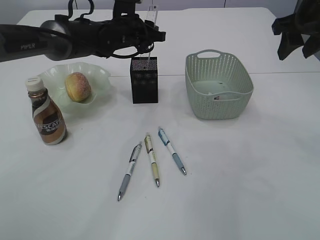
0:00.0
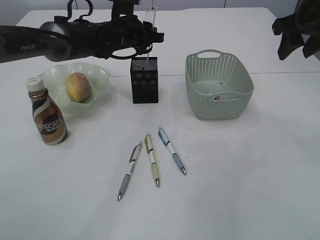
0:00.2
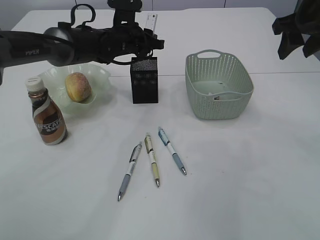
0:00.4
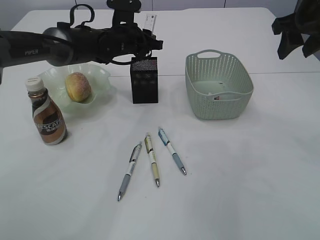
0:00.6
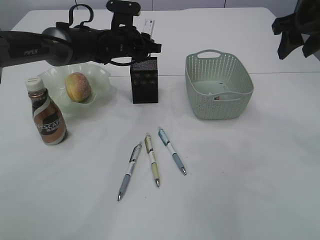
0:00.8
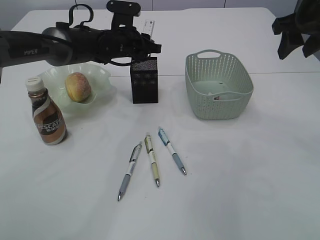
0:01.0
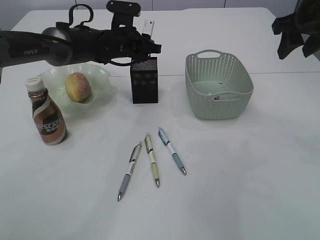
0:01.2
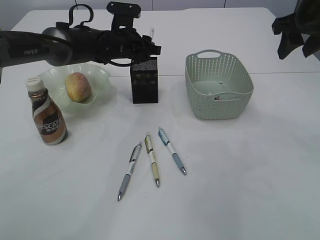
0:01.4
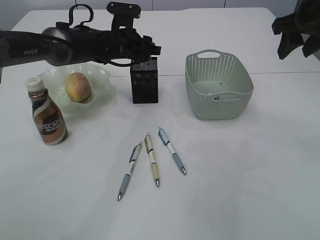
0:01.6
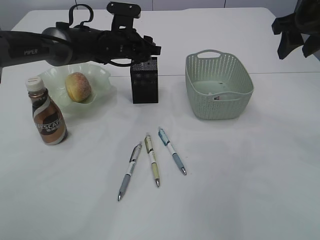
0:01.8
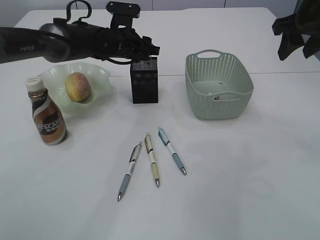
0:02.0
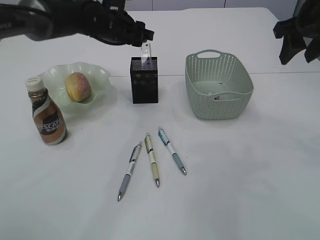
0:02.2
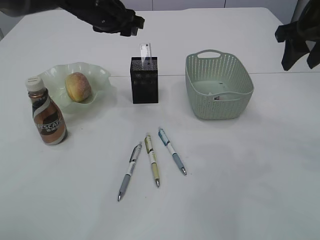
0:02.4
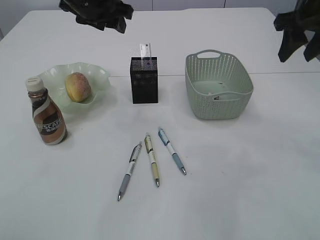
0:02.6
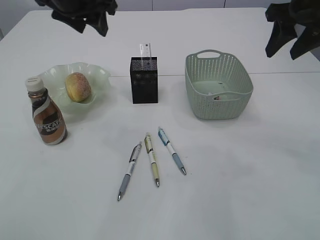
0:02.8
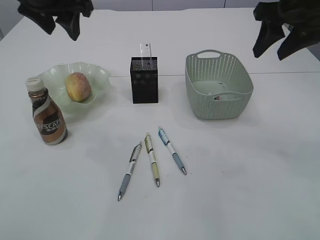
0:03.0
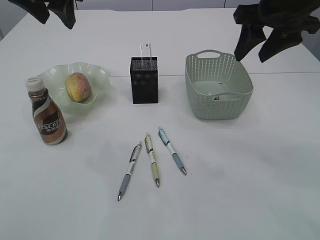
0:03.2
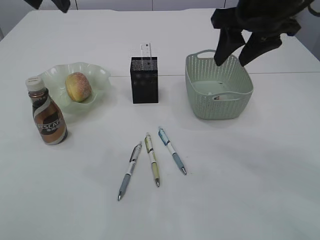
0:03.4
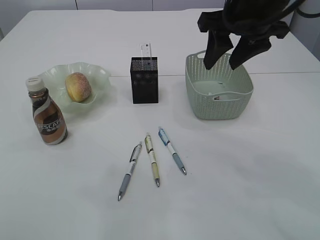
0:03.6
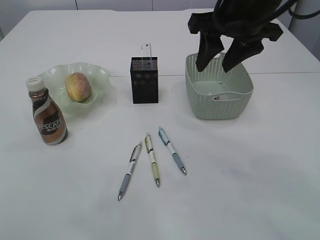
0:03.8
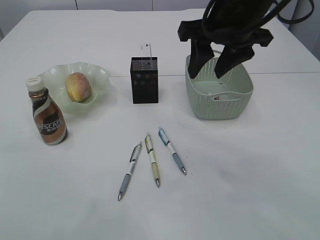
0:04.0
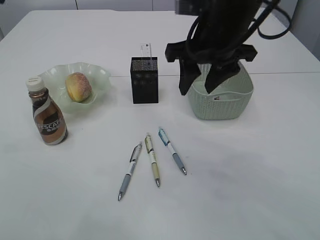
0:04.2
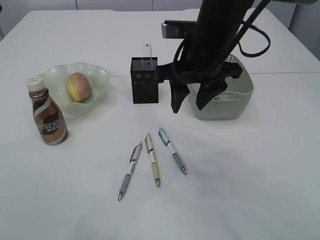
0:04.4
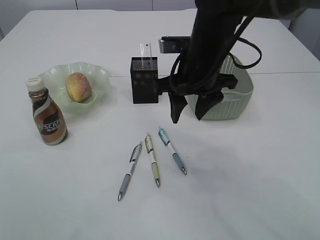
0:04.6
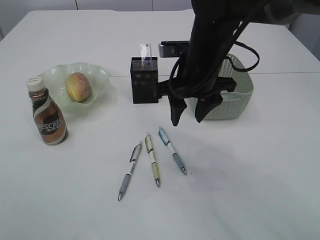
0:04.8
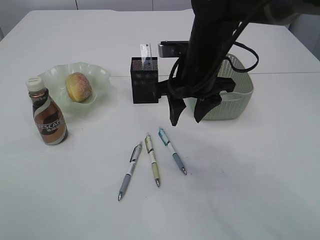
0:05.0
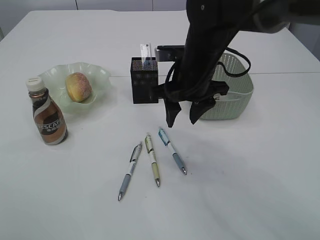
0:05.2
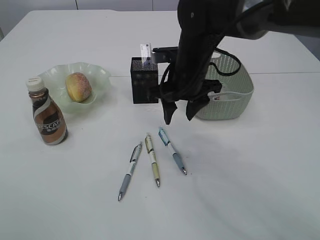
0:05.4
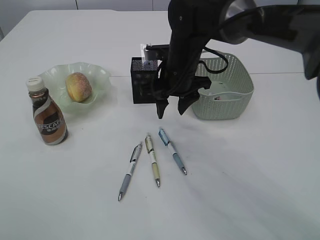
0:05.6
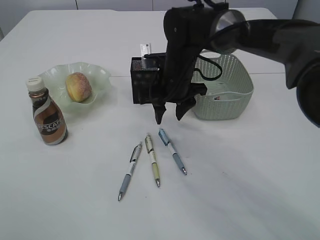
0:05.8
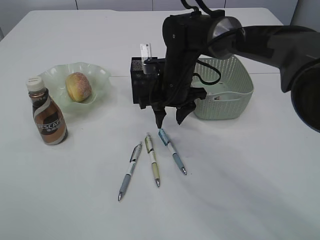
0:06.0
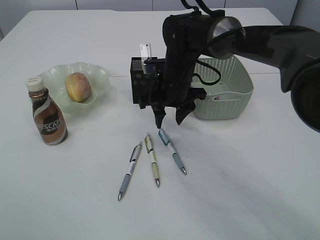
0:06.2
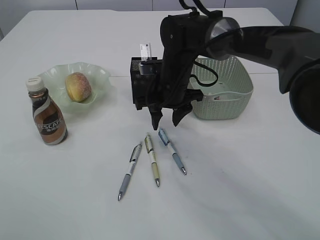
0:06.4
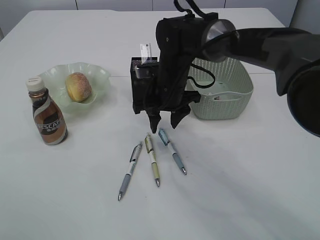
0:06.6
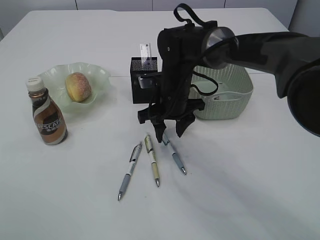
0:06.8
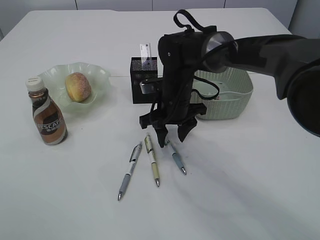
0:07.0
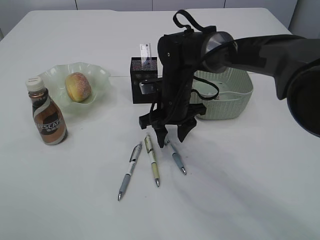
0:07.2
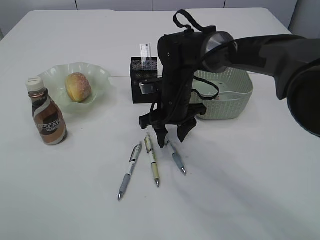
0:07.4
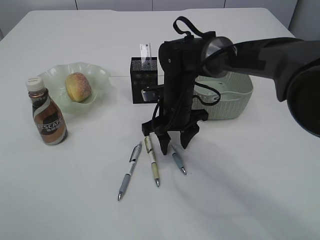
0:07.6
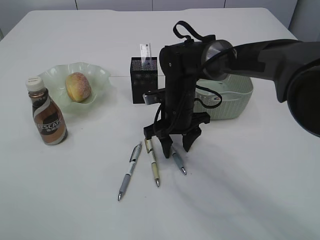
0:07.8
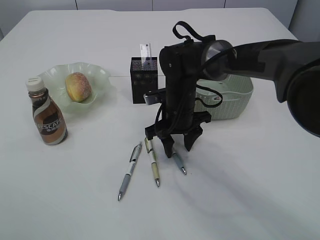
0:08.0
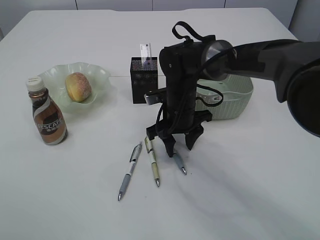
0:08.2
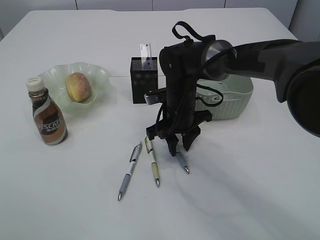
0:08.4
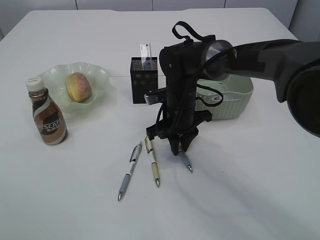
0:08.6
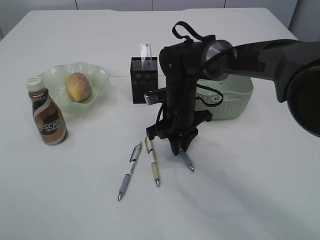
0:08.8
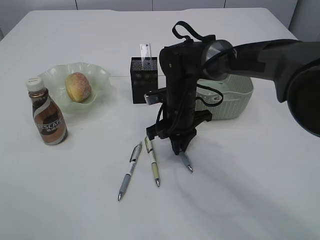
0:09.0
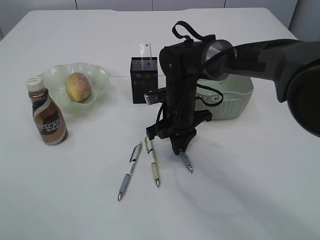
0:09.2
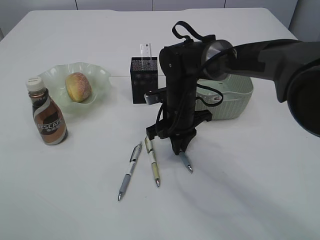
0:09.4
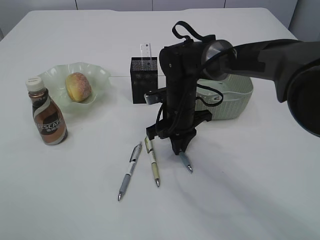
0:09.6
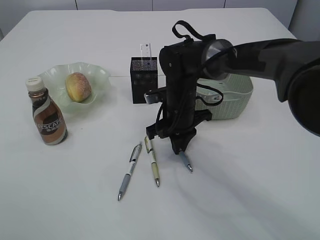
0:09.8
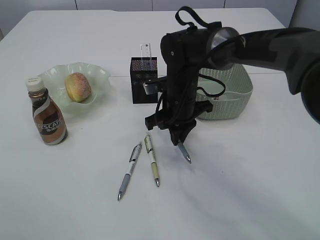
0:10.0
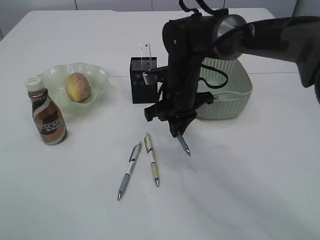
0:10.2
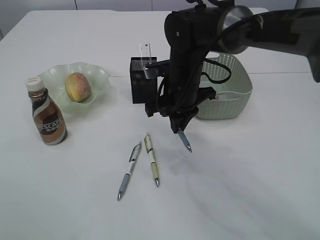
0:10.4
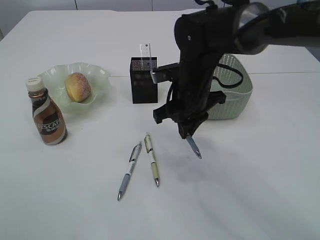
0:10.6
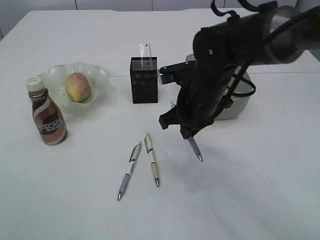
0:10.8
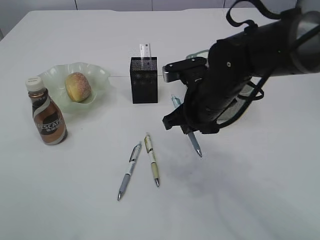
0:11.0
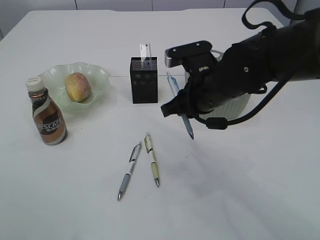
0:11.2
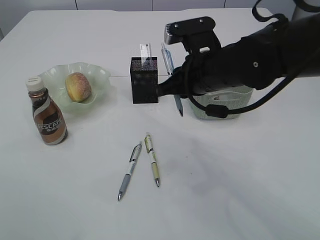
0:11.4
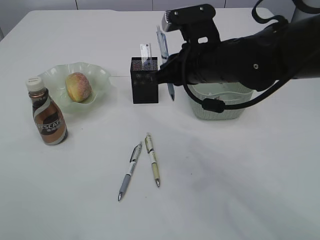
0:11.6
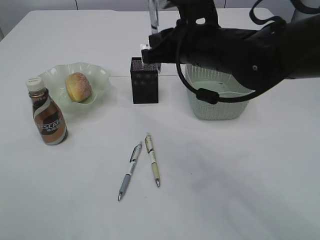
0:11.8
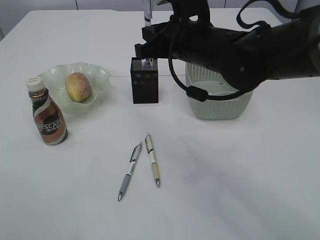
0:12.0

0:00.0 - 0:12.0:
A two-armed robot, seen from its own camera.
Step, 0:00.0 - 0:02.2: Place the ruler into the pen holder.
Step, 0:02.4 - 0:10.2: Pick up the pen with right arm.
0:00.0 - 0:01.6: The grippers move only a little.
0:01.6 - 0:03.0: The left gripper travels upward, backward and to the left by roughly 20 cm.
0:03.0 - 0:04.4: The right gripper goes approximately 15 cm to the left and downward. The left gripper heads backward and upward, covering some 20 cm.
0:04.4 - 0:06.0: The right gripper travels downward and forward by some 15 cm.
0:06.0 - 0:07.6: The grippers make only small movements.
0:07.6 - 0:09.0: The right gripper closes its fingers.
0:09.0 - 0:10.4: The right gripper shifts about 5 cm upward.
0:10.4 - 0:12.0: The right gripper heads upward, covering some 10 cm.

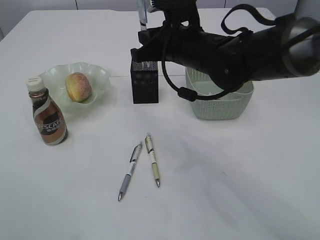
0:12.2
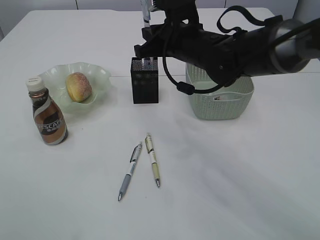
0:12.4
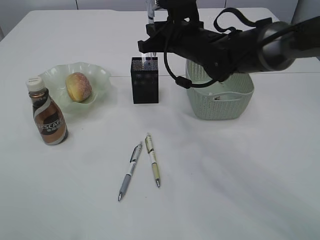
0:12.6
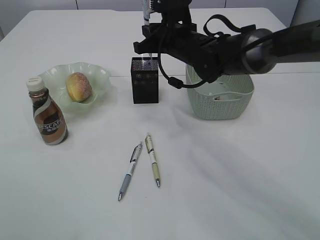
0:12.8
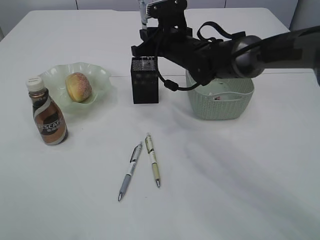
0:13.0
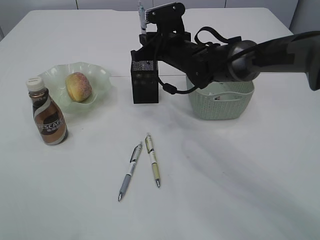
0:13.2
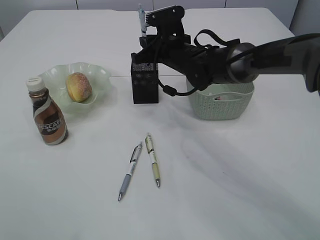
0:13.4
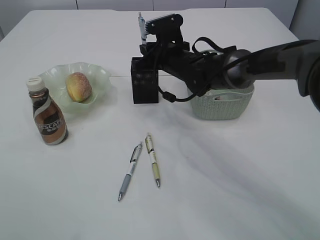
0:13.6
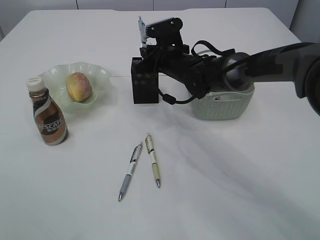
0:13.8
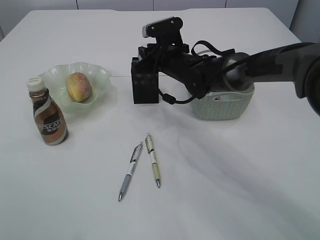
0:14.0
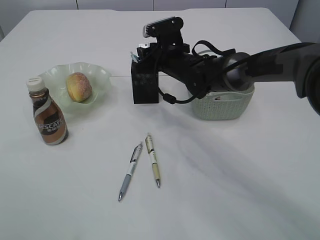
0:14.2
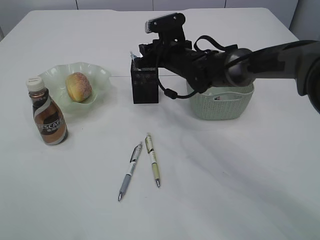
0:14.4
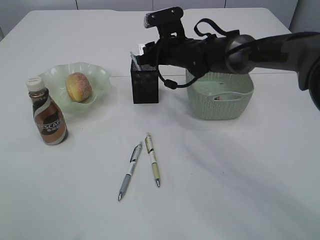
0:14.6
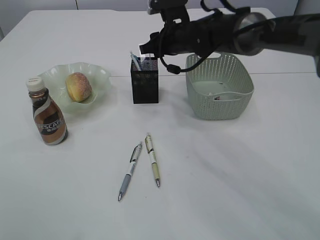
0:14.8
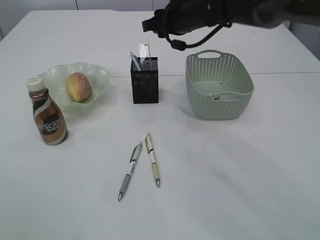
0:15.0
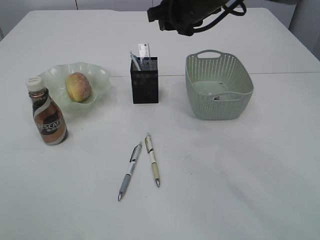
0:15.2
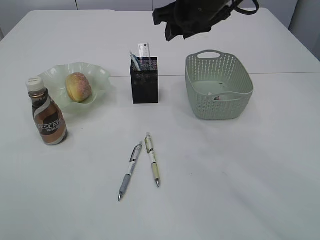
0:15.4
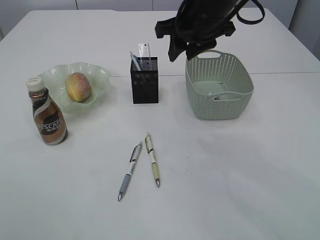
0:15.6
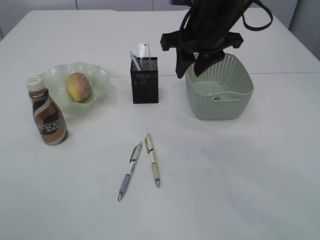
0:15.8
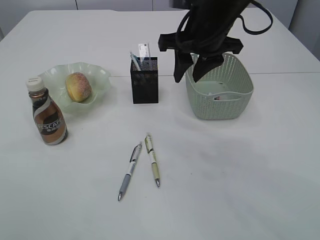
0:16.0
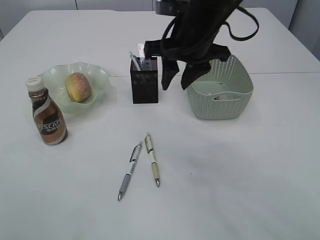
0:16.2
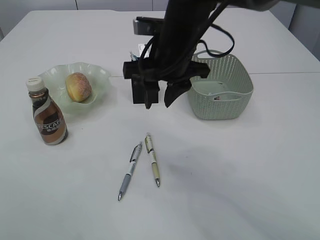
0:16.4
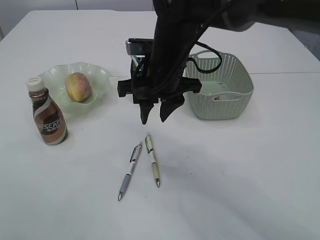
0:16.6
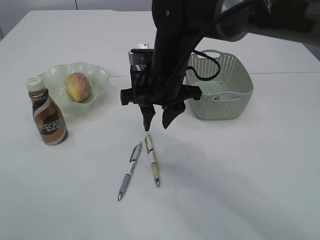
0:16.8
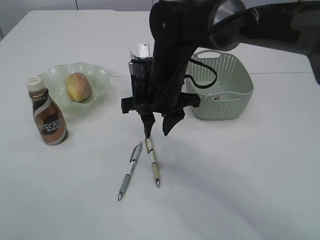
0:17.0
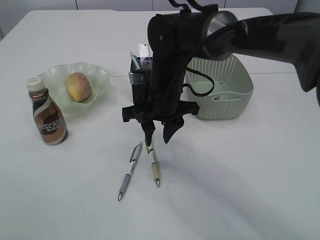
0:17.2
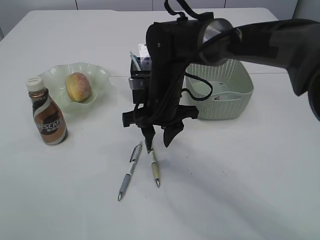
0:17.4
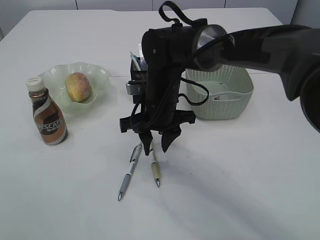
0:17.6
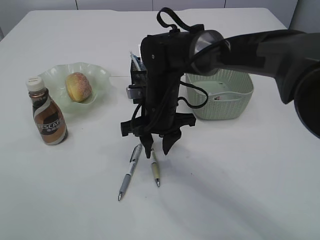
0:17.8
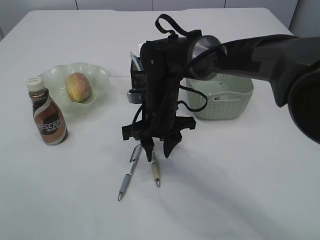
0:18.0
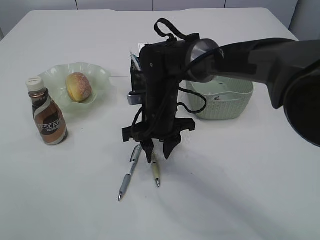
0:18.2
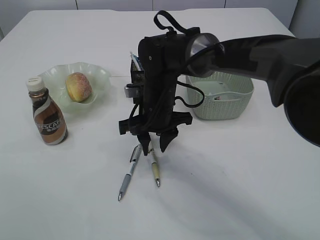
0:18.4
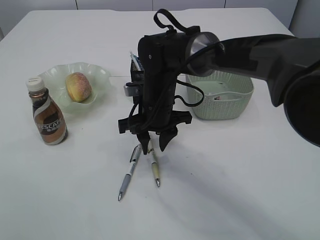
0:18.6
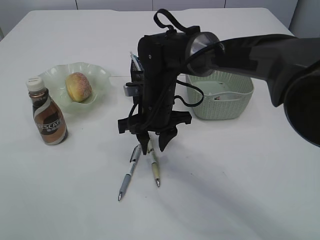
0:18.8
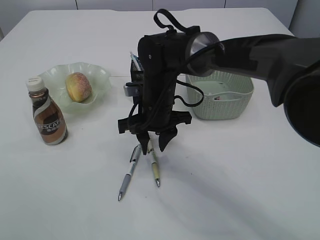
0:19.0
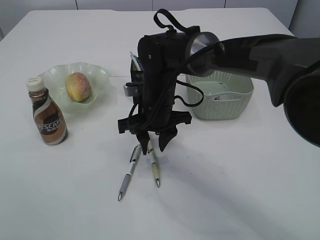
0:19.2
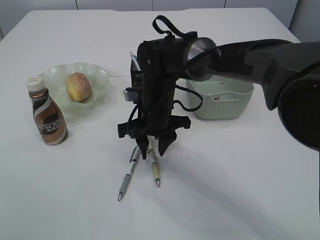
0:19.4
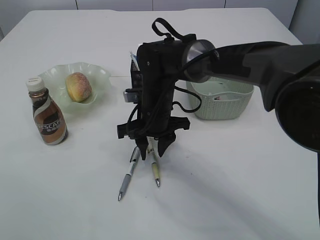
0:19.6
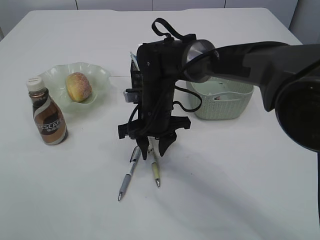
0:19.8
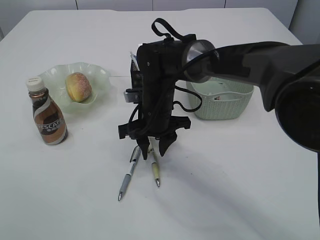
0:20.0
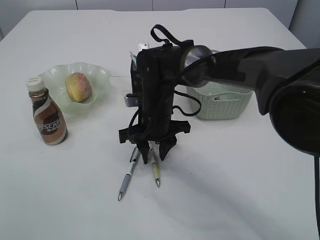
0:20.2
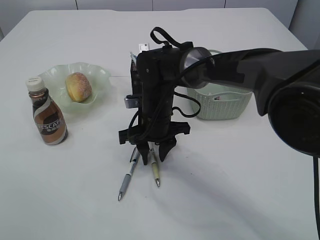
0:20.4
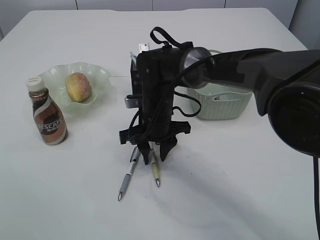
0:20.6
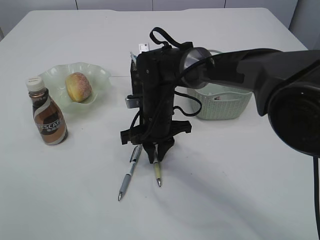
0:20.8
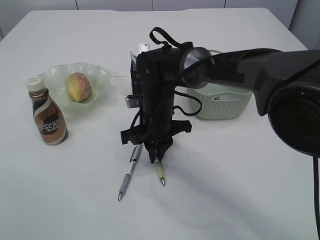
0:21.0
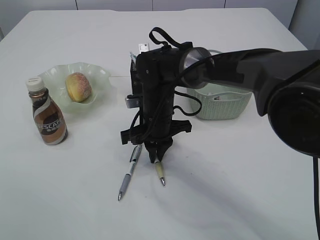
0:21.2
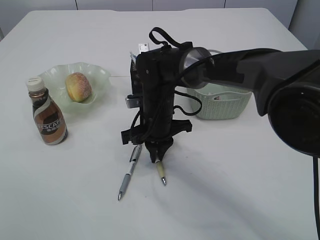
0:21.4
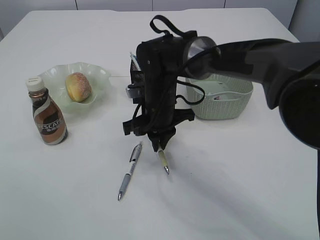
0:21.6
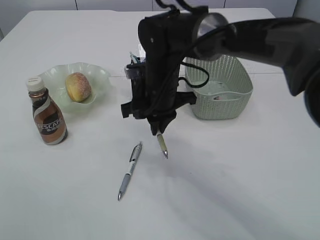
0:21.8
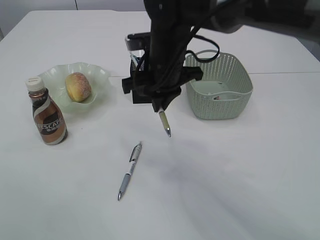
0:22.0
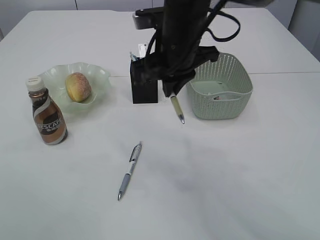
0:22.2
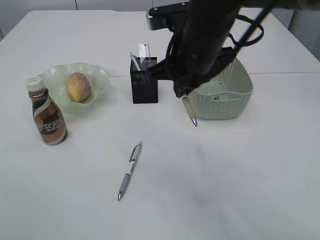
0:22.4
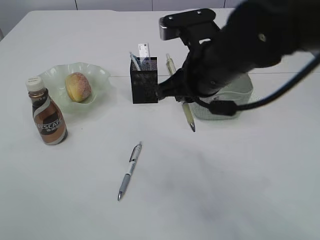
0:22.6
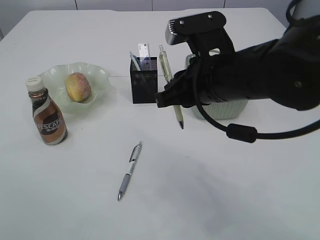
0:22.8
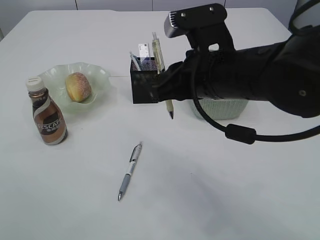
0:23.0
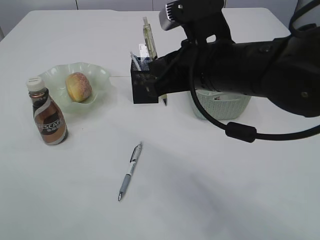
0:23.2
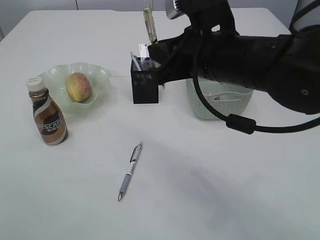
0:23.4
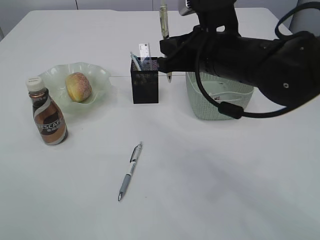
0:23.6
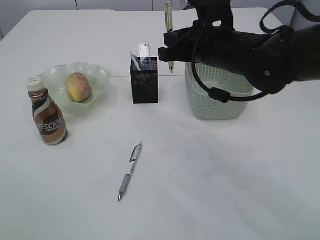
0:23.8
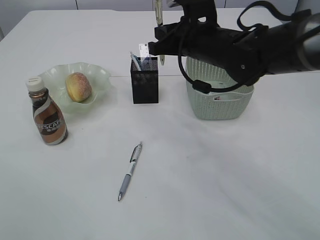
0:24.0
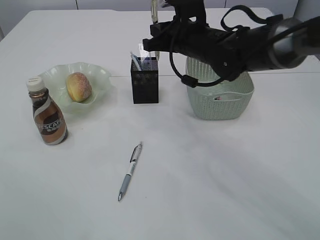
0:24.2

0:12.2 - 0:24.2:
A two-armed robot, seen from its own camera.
Step, 0:12.2 - 0:14.8: Place the pen into the pen holder.
Step, 0:15.0 - 0:21.8: Pick up the pen with right arm.
0:12.2 - 0:13.8: The right gripper shifts about 15 cm forward and downward.
0:13.8 - 0:15.2: The right gripper is displaced upward by about 15 cm, and opens its fingers.
0:15.2 - 0:16.6: The right gripper is displaced backward, downward and to the left by roughly 10 cm.
0:16.6 - 0:18.2: The right gripper moves downward, about 10 cm.
0:18.2 - 0:19.8: The grippers stay close to where they were, moving slightly.
0:19.8 - 0:21.2: The right gripper closes its fingers.
0:21.2 - 0:22.6: The right gripper travels upward, backward and to the right by about 20 cm.
0:22.6 - 0:24.2: The right gripper goes about 15 cm forward.
